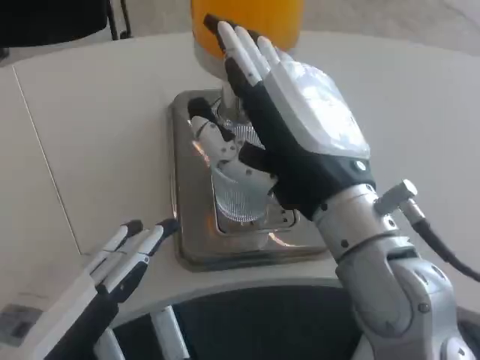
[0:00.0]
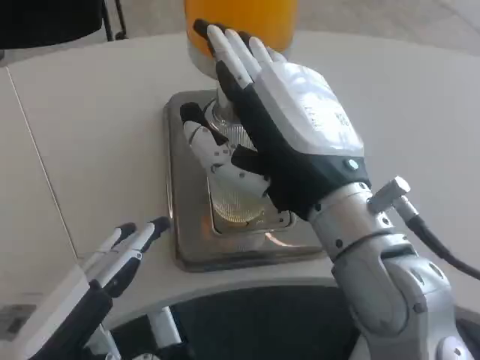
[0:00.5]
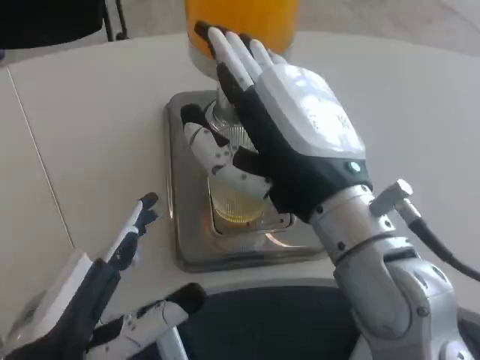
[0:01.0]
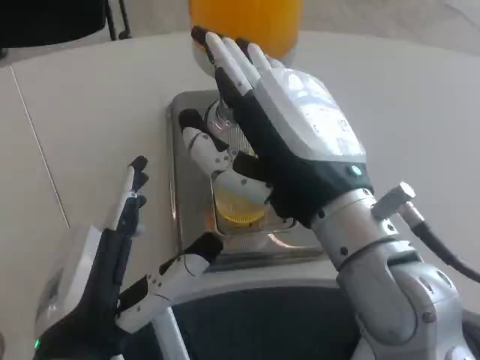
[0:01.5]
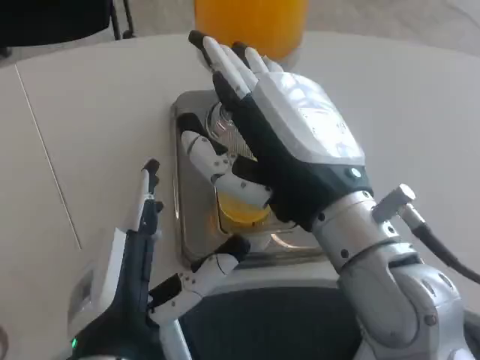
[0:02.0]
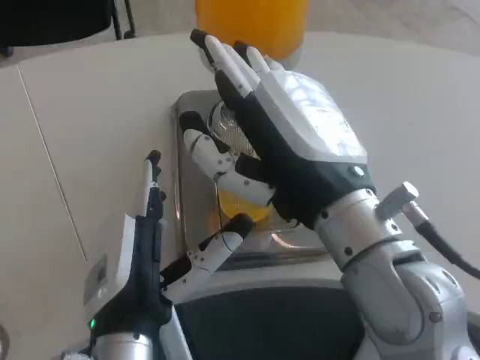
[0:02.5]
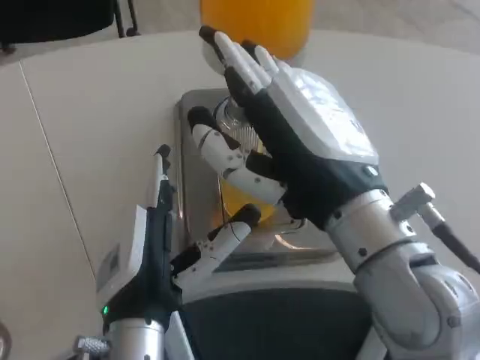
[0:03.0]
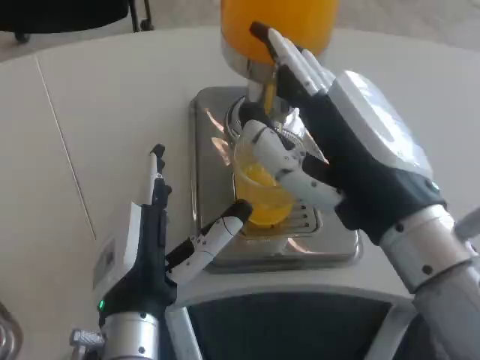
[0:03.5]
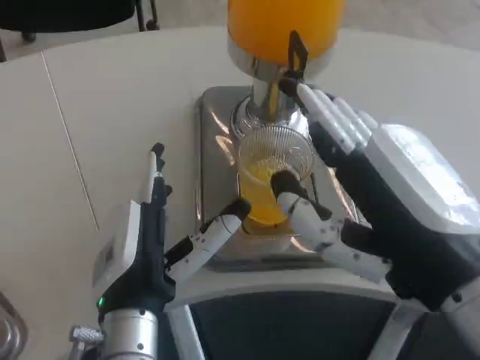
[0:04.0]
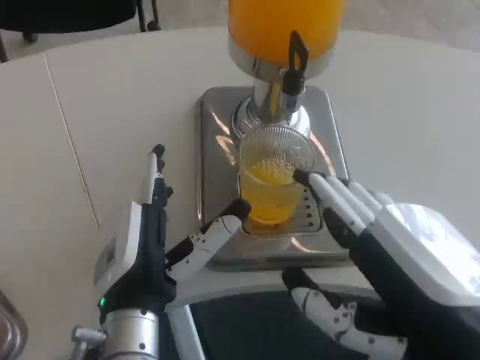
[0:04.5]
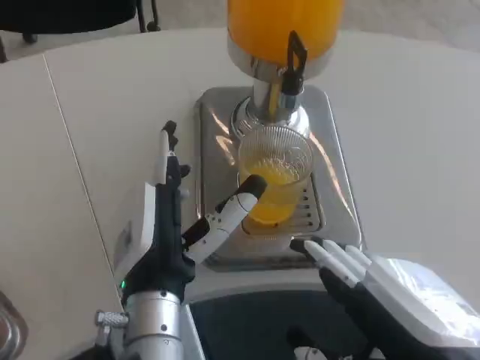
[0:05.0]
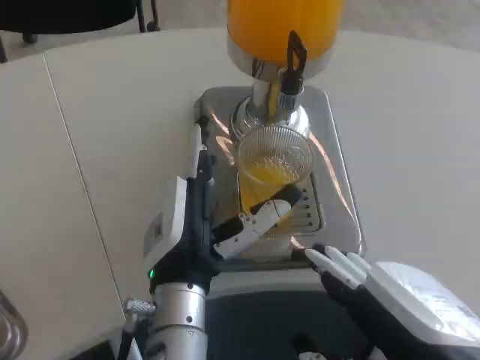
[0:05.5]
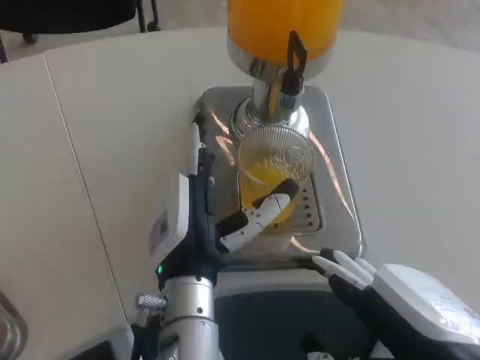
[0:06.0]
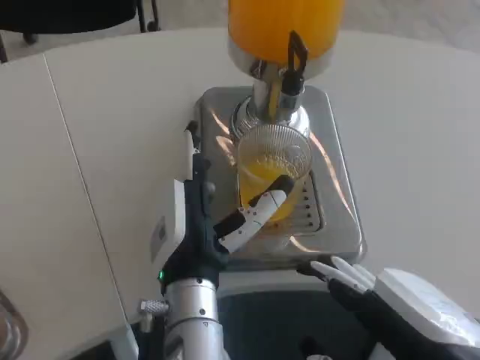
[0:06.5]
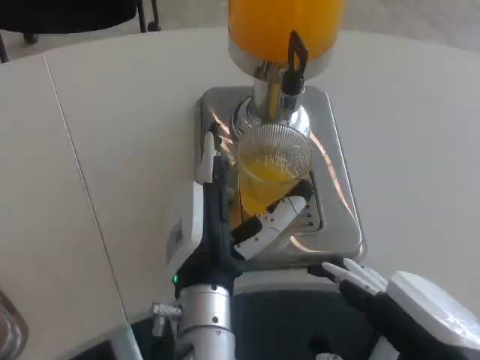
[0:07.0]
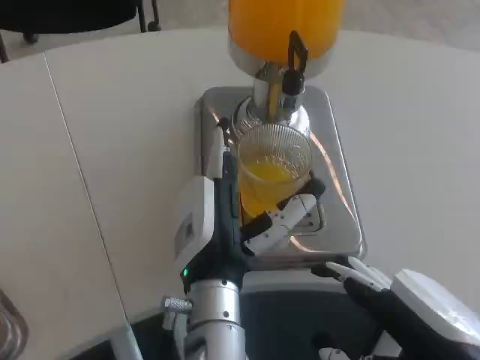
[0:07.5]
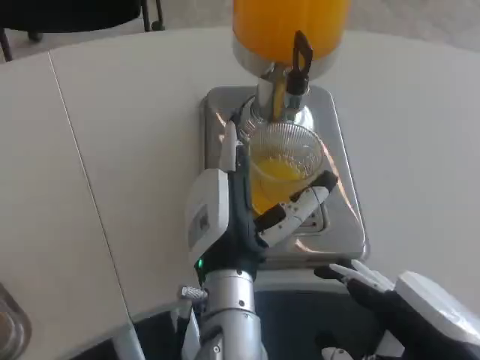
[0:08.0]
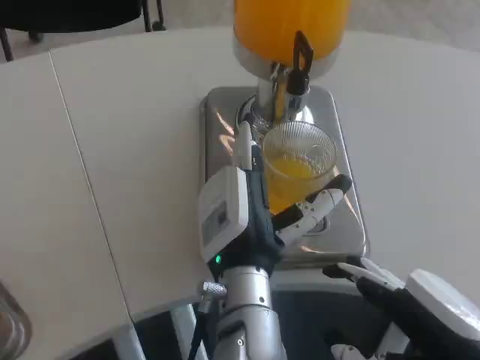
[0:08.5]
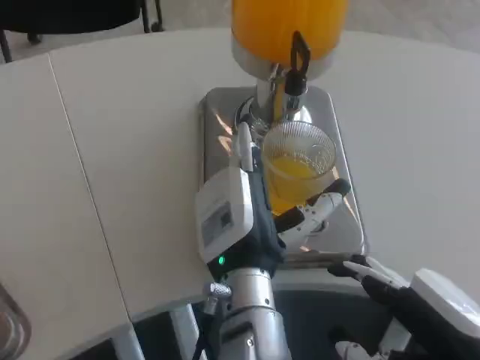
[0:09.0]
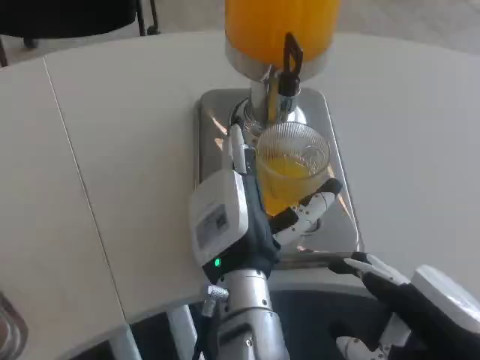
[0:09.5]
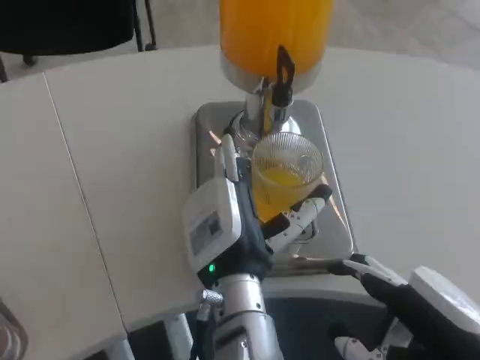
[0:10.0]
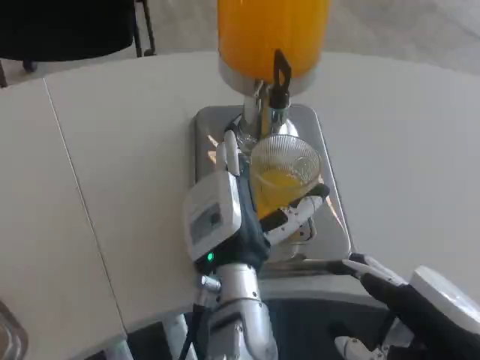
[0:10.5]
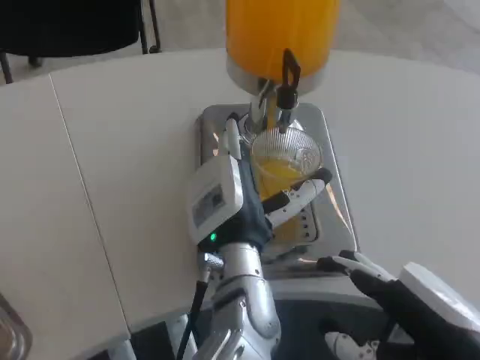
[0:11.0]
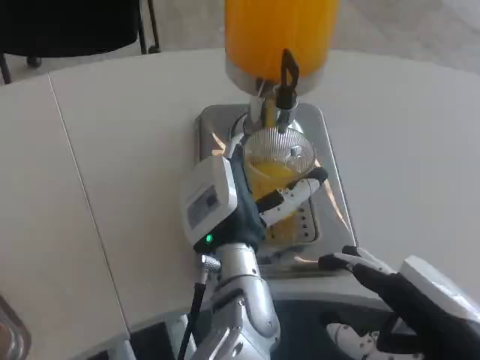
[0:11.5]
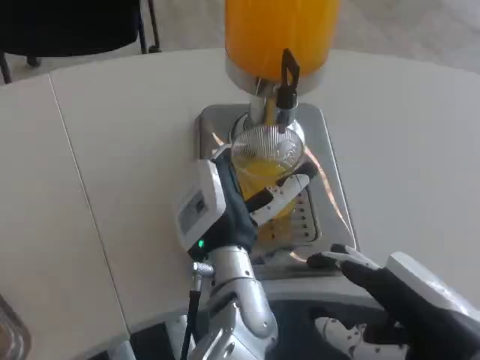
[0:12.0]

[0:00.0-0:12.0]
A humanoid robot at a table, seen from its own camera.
Task of the whole recording: Grasp the cup under the faucet to collect the drink, then remove the cup.
0.0 to 2.0 s: The left hand is displaced to the right by approximately 10 cm.
2.0 to 4.0 s: The right hand goes roughly 10 cm to the right and backward.
4.0 to 6.0 s: The left hand ends up approximately 5 cm from where it was.
6.0 to 8.0 s: The hands stay close to where they were, moving slightly.
10.0 to 12.0 s: The hands stay close to where they were, moving slightly.

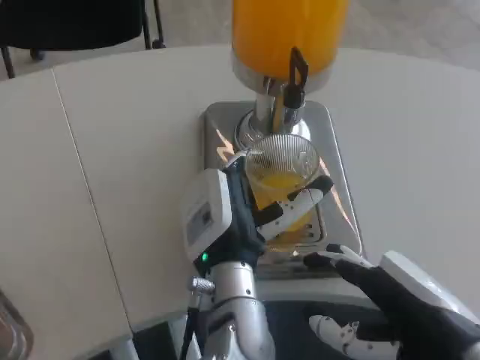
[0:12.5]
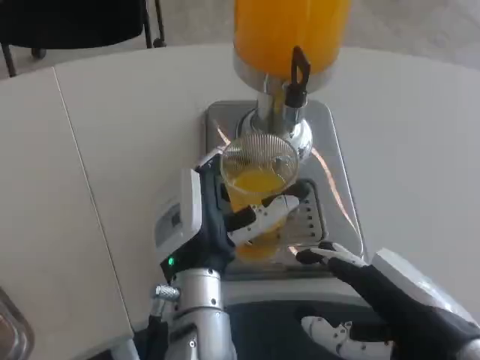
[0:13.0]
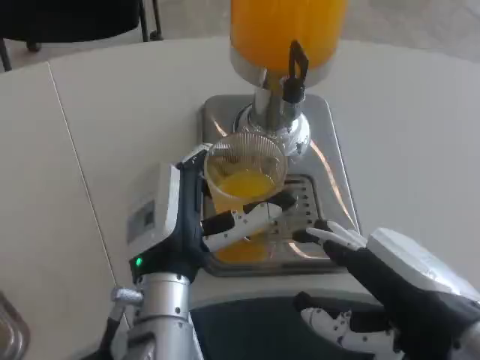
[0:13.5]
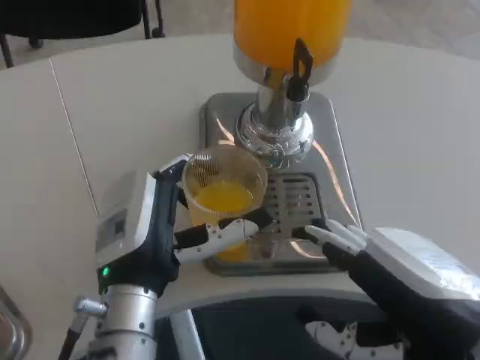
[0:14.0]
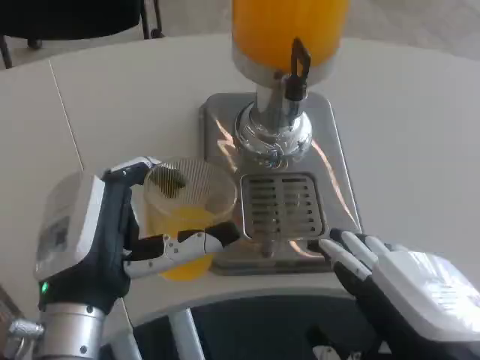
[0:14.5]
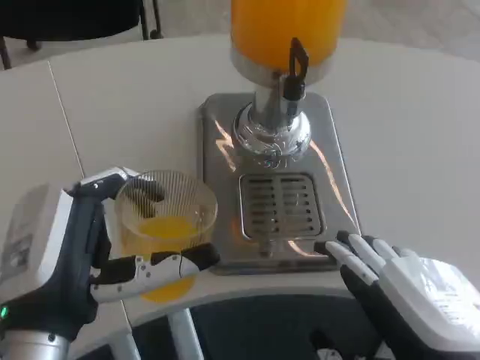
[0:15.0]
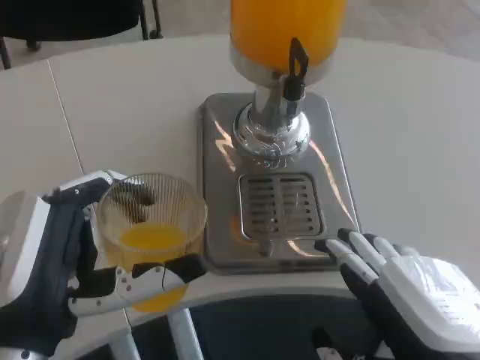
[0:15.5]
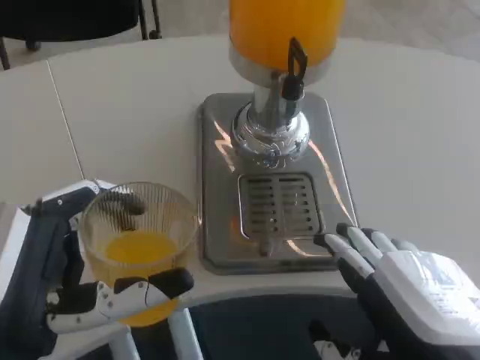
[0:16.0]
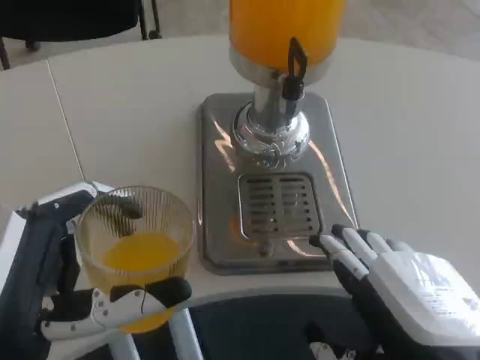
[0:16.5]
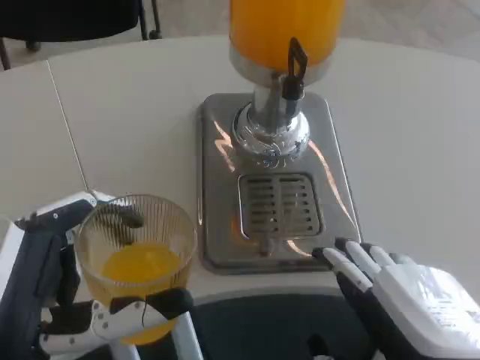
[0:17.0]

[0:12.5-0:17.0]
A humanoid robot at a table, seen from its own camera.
Task of the whole recording: Grasp the cup under the faucet to collect the drink, then remove the cup.
12.5 to 14.5 s: The right hand ends up approximately 5 cm from where it was, while the left hand heads to the left and backward, covering roughly 15 cm.
14.5 to 17.0 s: The left hand shifts approximately 10 cm backward.

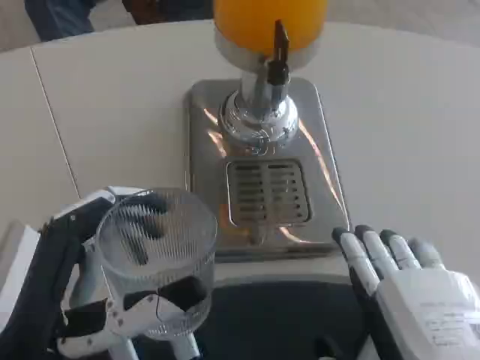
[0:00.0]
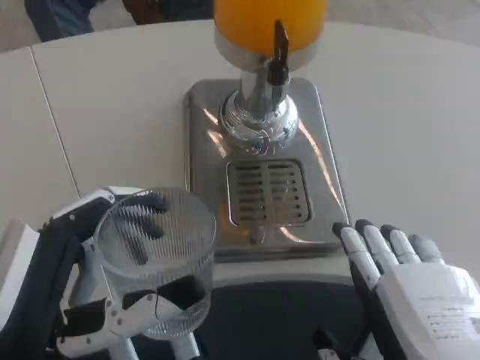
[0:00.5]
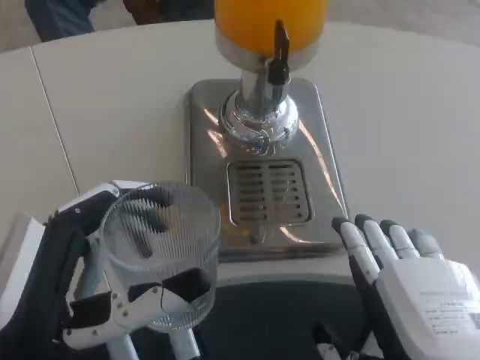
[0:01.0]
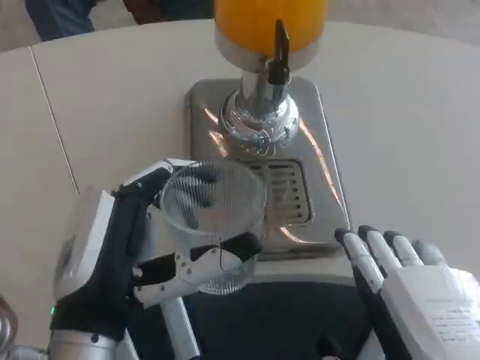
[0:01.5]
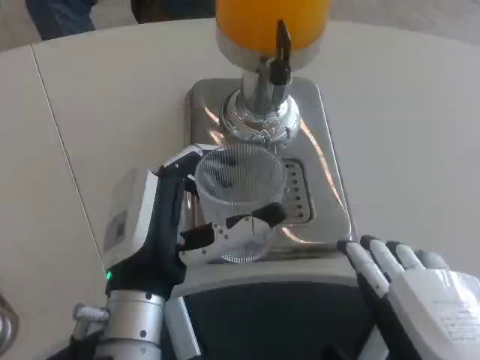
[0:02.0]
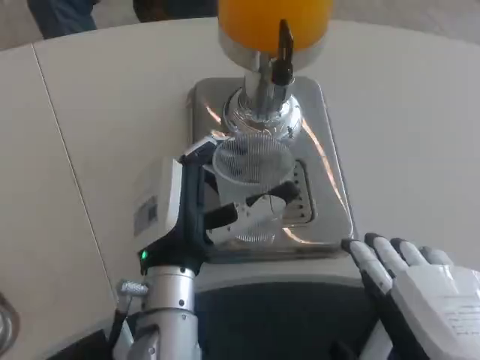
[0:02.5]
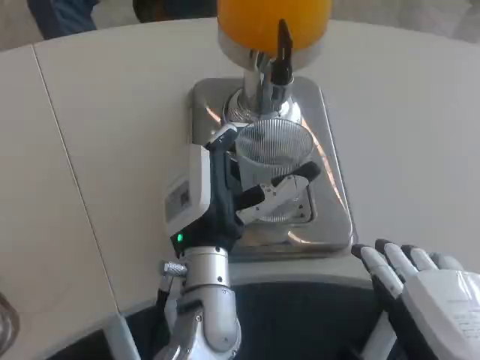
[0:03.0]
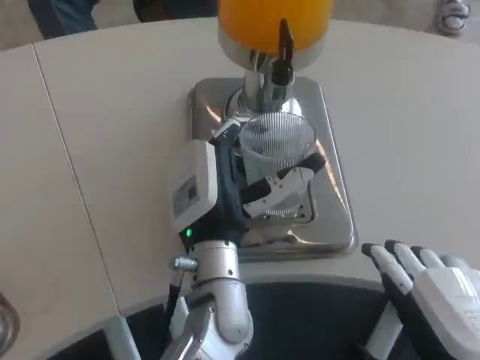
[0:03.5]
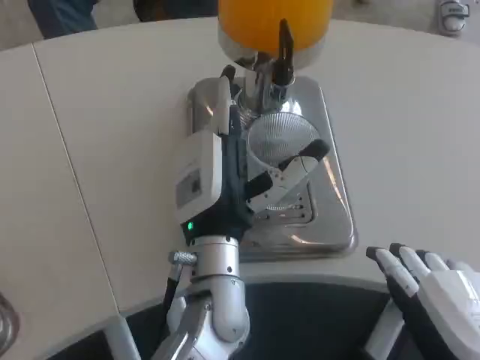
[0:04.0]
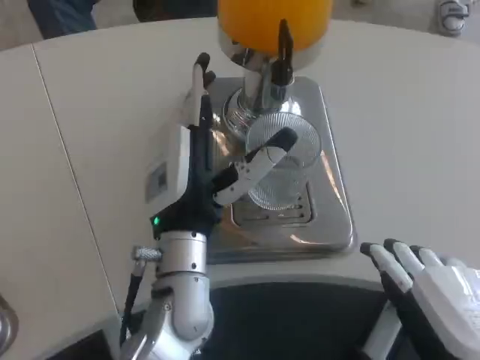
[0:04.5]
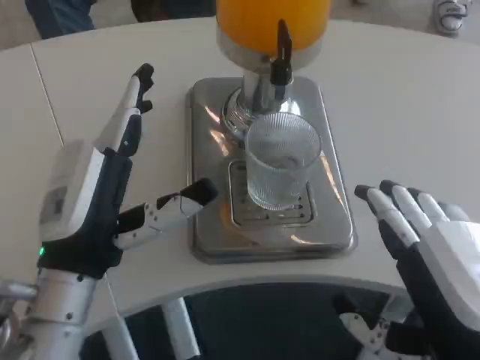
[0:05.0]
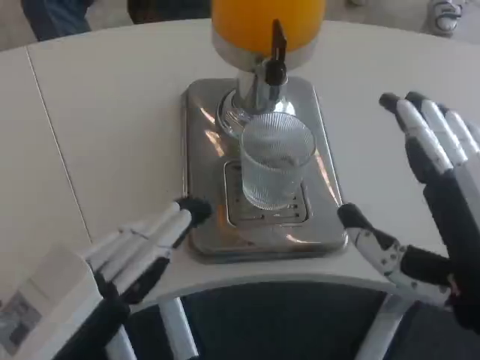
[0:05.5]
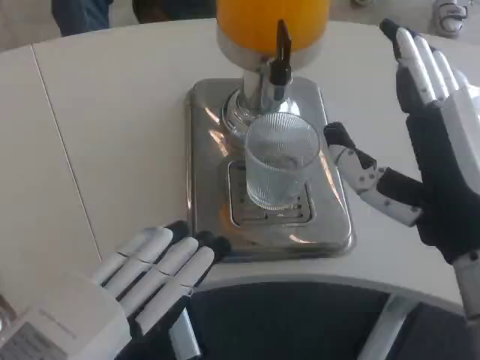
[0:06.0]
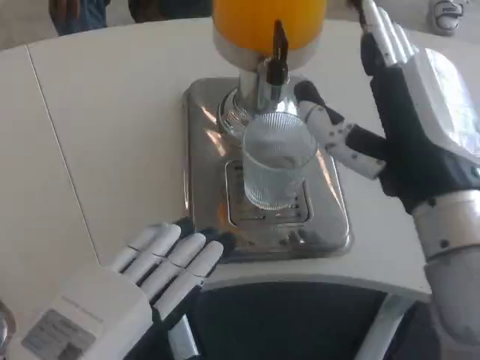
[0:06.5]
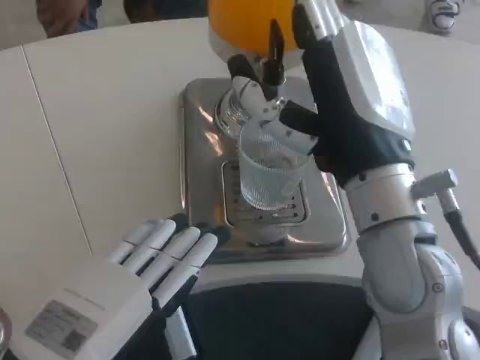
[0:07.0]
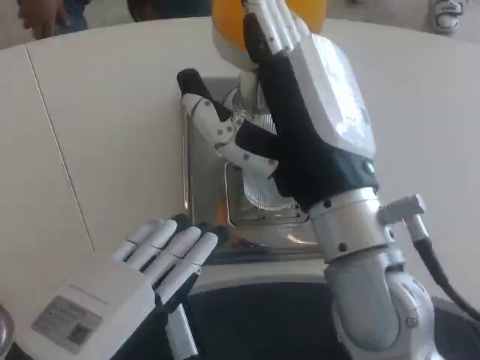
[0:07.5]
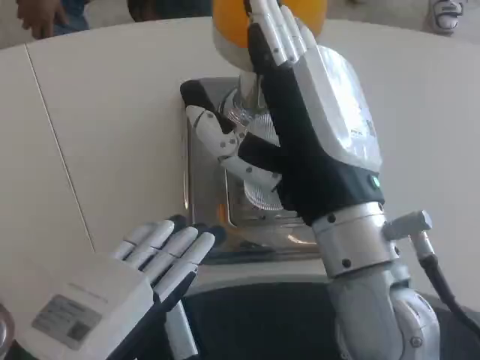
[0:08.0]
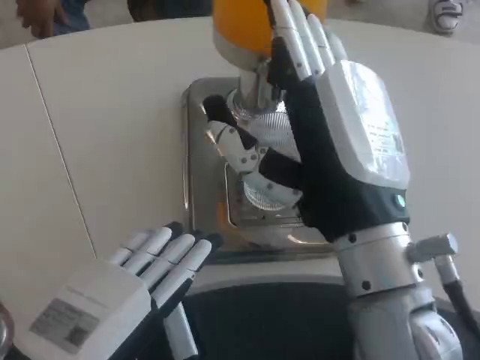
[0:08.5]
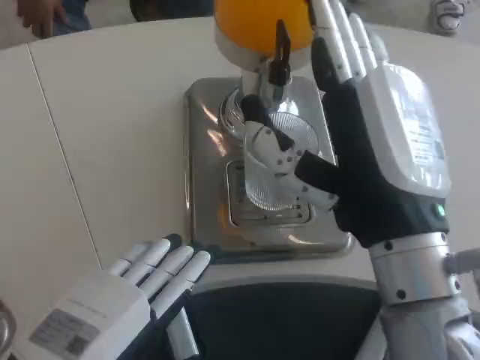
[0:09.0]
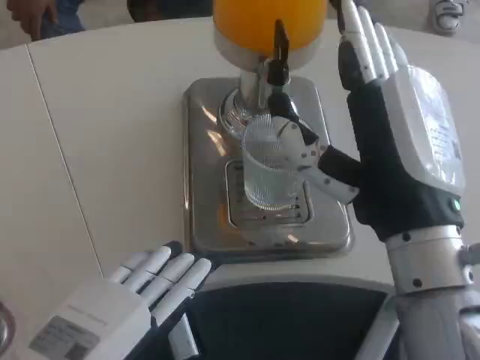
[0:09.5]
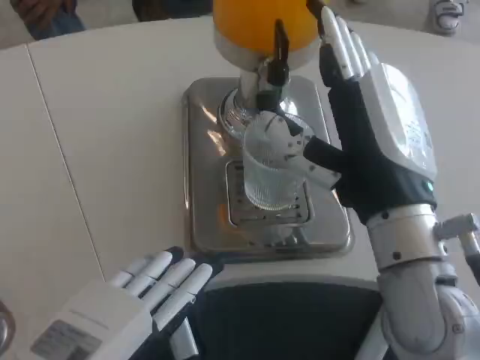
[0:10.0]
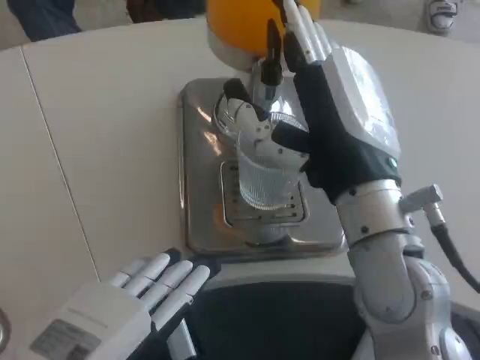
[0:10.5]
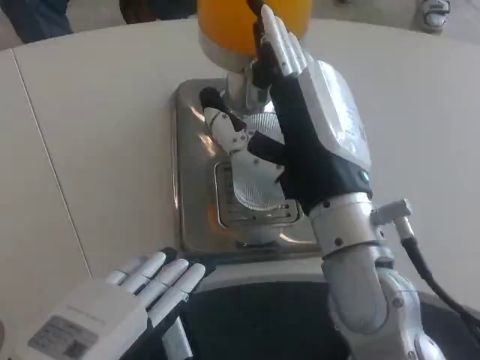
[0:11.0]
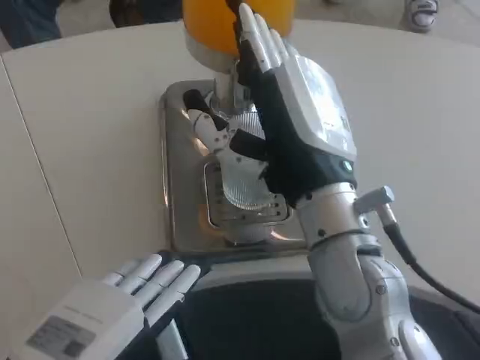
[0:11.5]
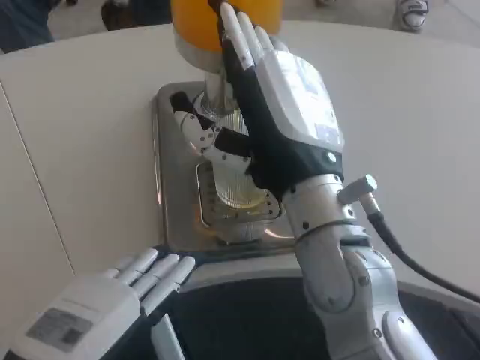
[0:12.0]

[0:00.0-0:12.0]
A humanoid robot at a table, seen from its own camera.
Task of the whole recording: Grasp the cup under the faucet to collect the drink, then remove the cup.
0.0 to 2.0 s: The left hand travels forward and to the right by about 15 cm.
2.0 to 4.0 s: The left hand travels to the right and forward by approximately 10 cm.
4.0 to 6.0 s: The left hand moves backward and to the left, roughly 25 cm. The right hand heads forward, covering some 10 cm.
6.0 to 8.0 s: The right hand heads to the left, covering some 10 cm.
10.0 to 12.0 s: The right hand is displaced to the left by some 5 cm.
